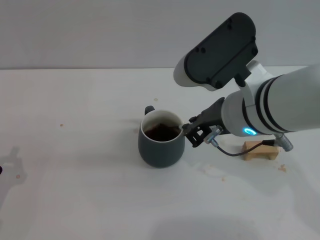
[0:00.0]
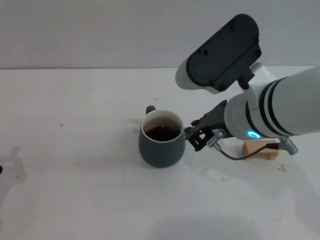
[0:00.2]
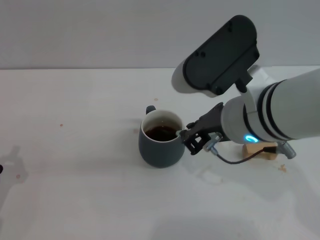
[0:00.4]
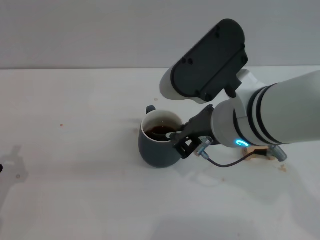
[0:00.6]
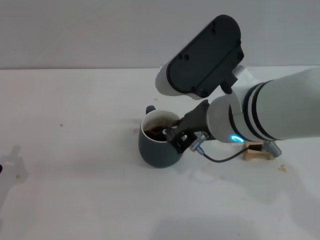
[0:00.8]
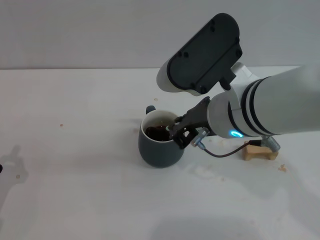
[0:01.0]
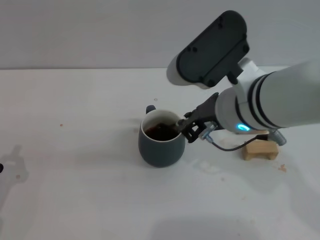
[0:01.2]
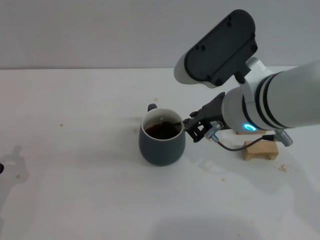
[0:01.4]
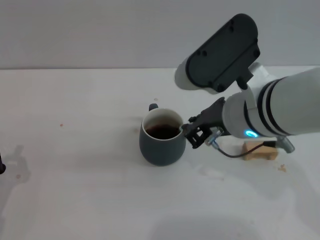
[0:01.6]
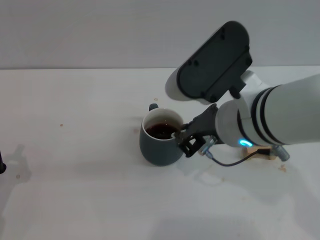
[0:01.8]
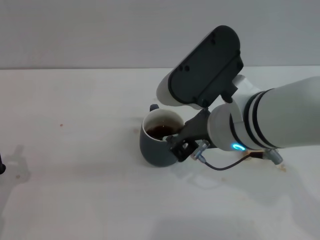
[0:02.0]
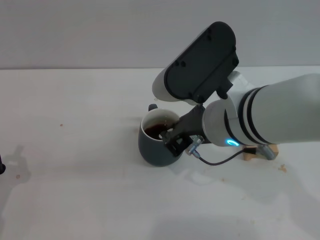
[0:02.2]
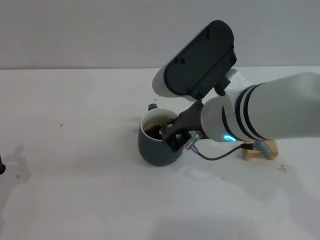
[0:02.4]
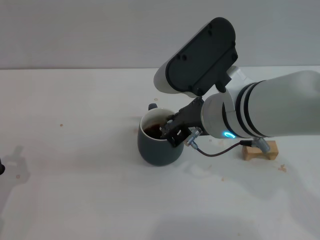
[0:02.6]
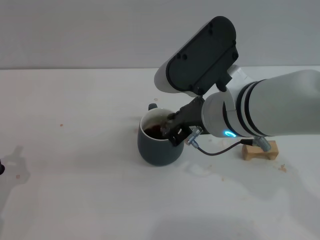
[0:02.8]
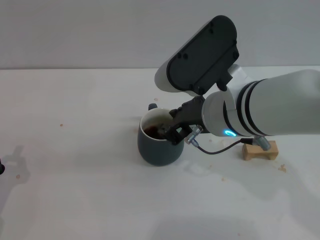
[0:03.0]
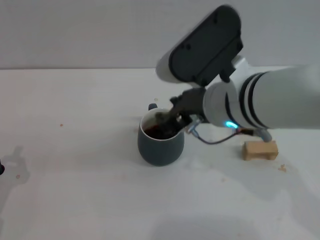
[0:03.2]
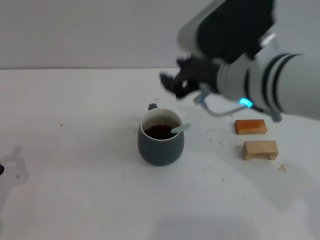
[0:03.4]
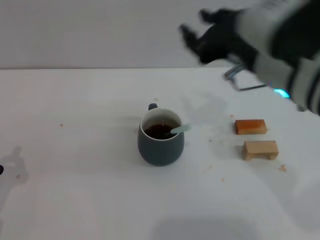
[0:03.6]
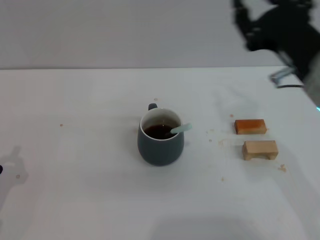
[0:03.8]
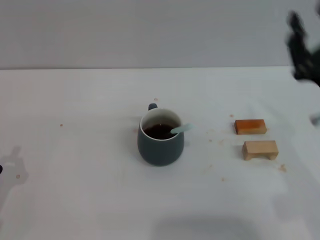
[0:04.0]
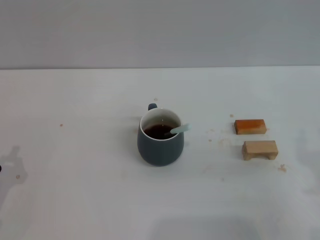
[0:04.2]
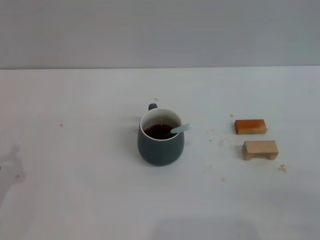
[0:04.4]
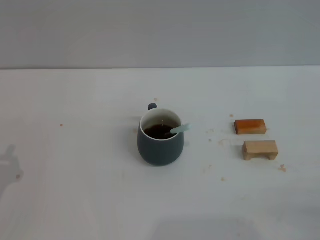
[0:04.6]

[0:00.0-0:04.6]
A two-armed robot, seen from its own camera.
Task of the whole recording: Move the grey cup to the center, lift the blue spoon, stir it three times in the cup, and put the spoon into the cup.
Step, 0:00.0 to 0:03.2: Stir the coffee in the cup with the right gripper.
0:00.0 to 0:03.0: There are only small adjustments of the grippers.
0:03.0 to 0:04.6: The right gripper heads to the right, backward and downward, covering roughly 35 cm.
